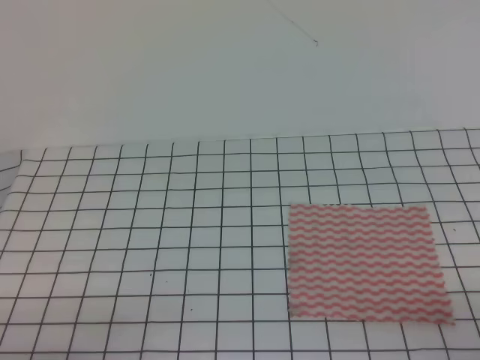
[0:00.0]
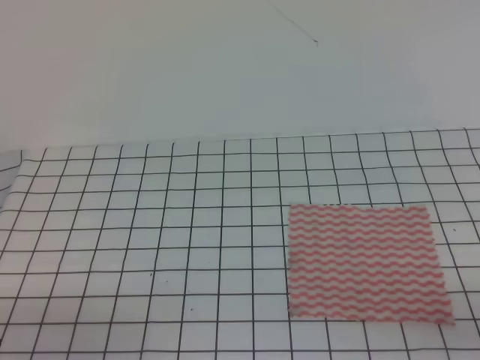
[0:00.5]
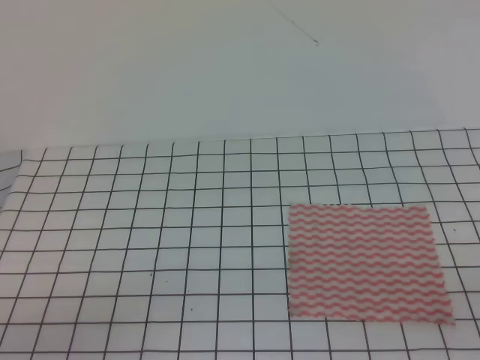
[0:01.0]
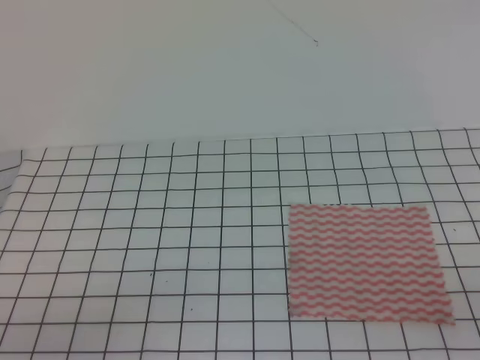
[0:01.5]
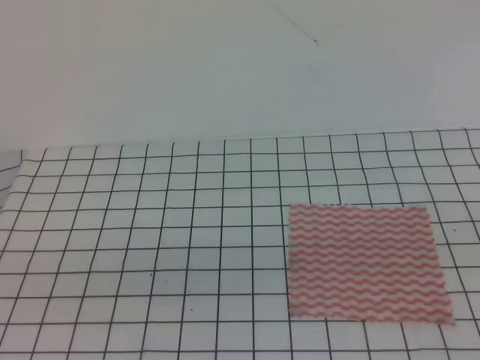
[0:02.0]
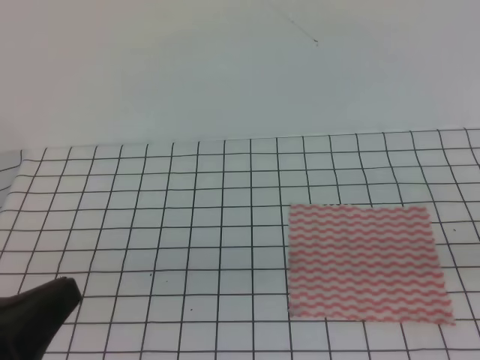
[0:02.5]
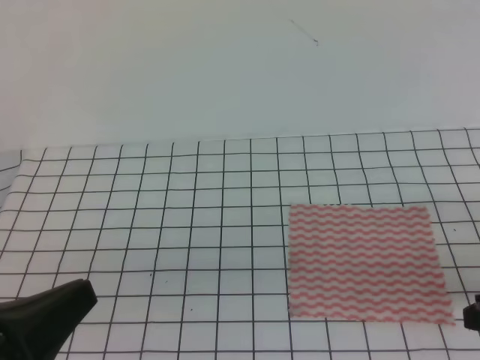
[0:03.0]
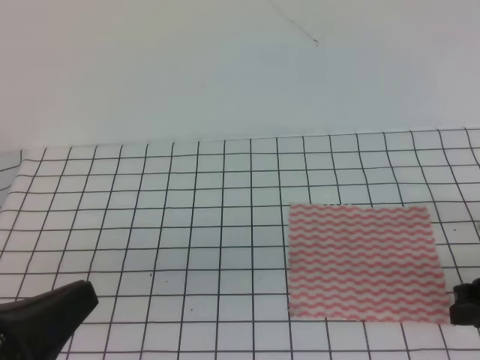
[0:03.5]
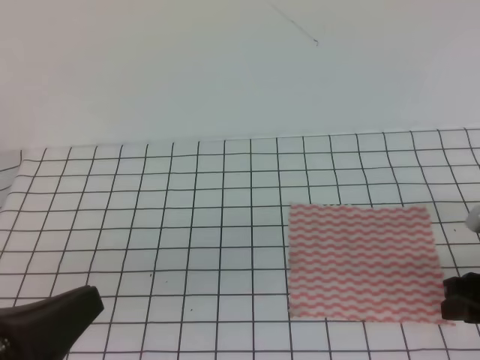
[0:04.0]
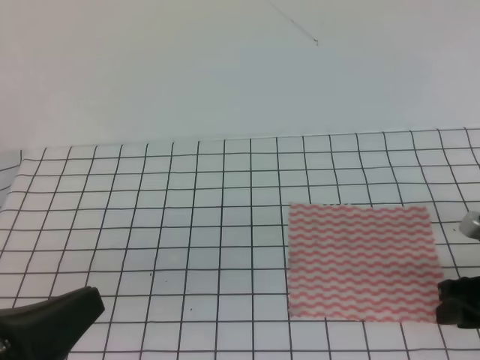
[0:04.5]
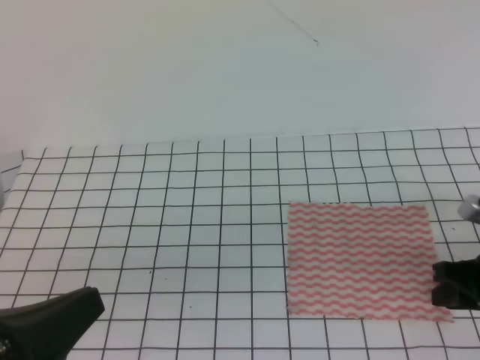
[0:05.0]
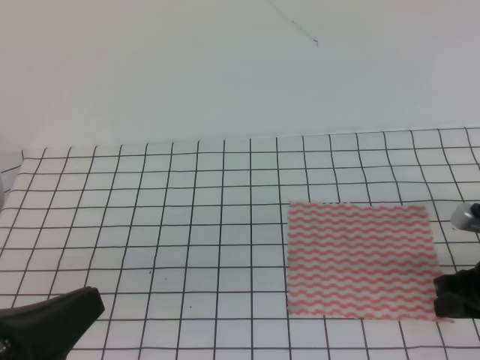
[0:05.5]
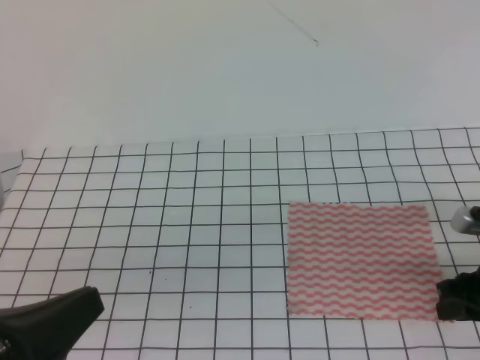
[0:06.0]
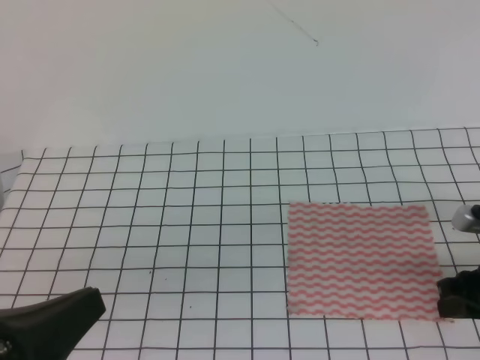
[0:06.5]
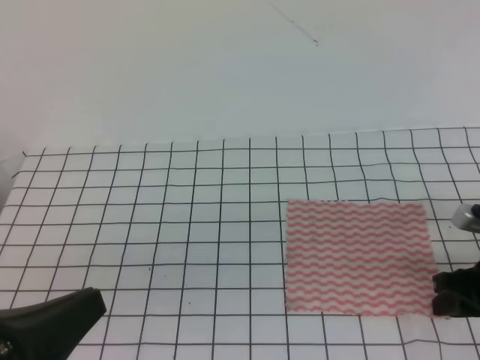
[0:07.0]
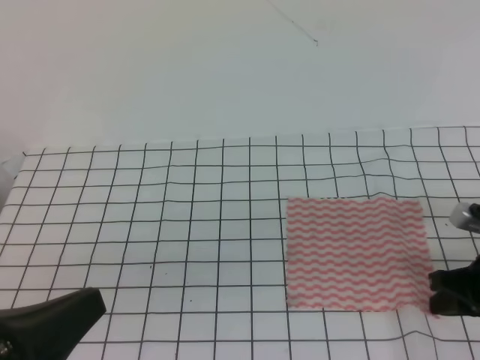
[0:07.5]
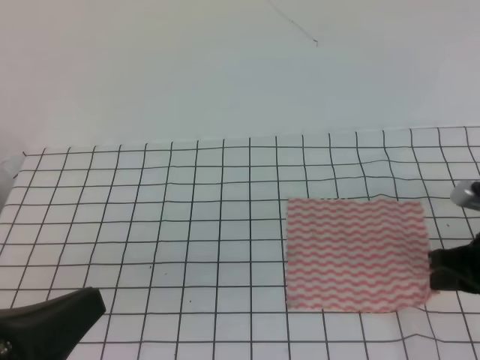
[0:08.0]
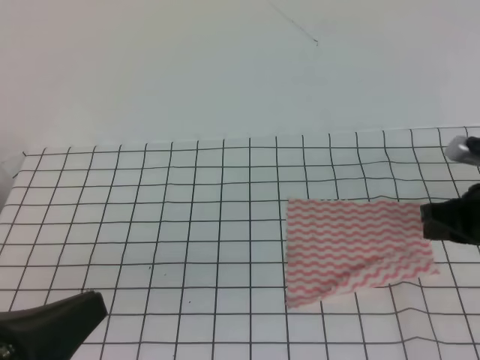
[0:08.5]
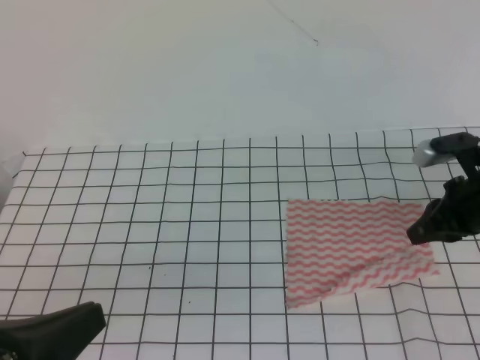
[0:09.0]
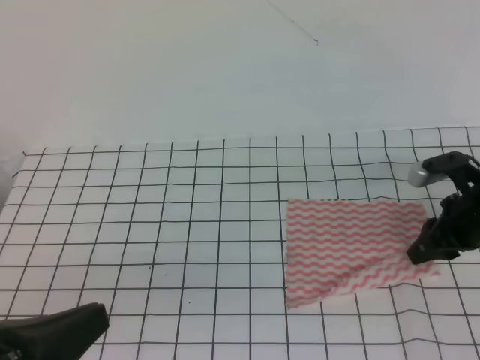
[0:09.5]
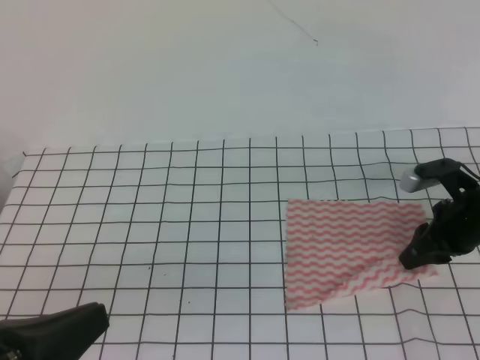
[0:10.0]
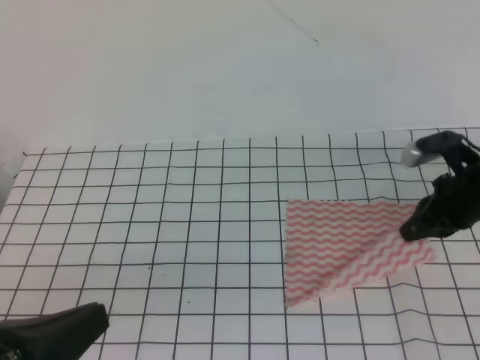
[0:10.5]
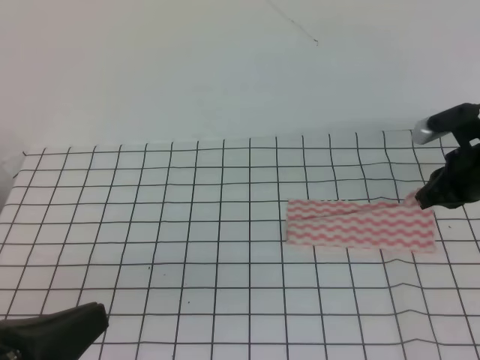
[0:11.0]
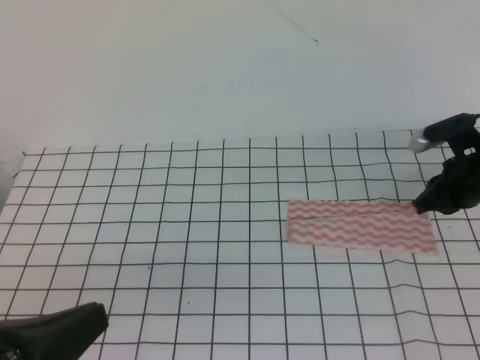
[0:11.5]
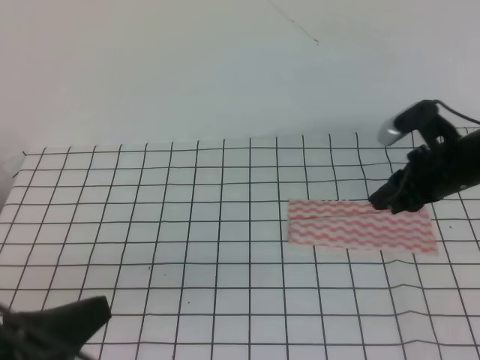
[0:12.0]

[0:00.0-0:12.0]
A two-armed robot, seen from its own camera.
0:02.0 to 0:04.0: The left gripper shifts by approximately 5 cm; the right gripper goes roughly 25 cm forward and downward, and opens.
0:04.0 to 0:06.0: The grippers move only a little.
0:06.0 to 0:08.0: The right gripper closes its fingers.
0:08.0 to 0:10.0: The right gripper travels forward by roughly 10 cm, and opens up.
0:10.0 to 0:12.0: The right gripper moves roughly 5 cm, and closes and opens again.

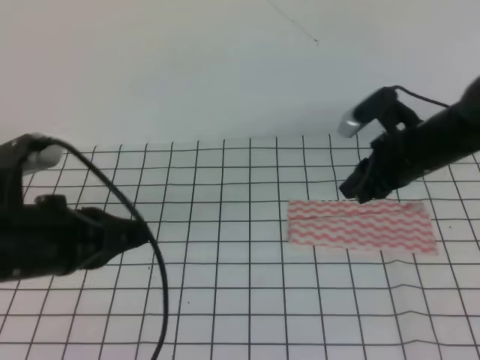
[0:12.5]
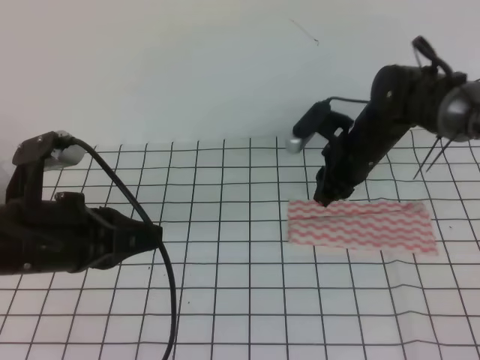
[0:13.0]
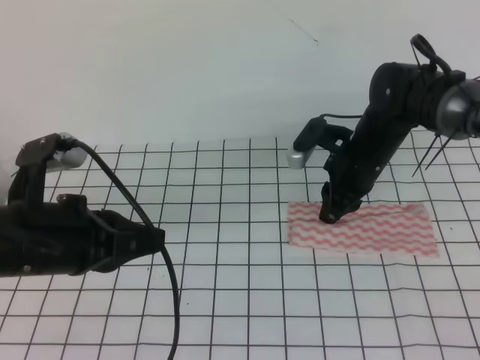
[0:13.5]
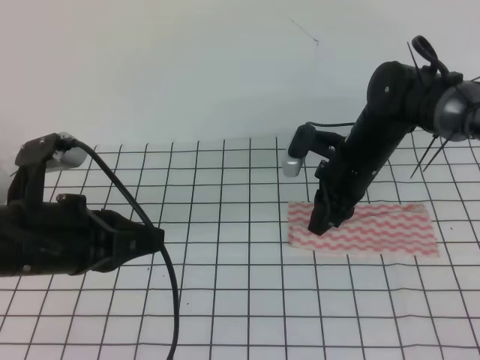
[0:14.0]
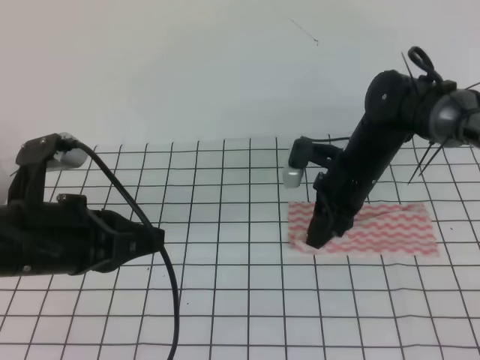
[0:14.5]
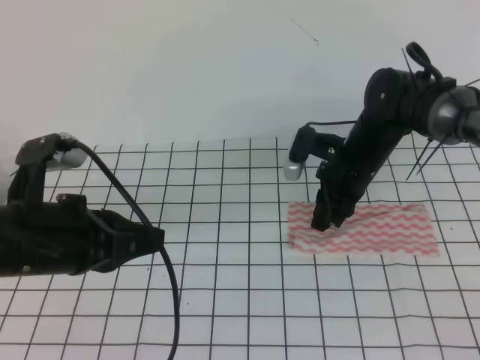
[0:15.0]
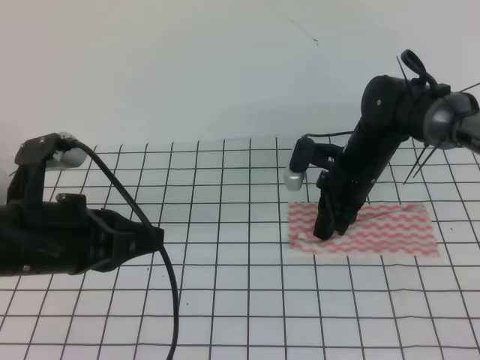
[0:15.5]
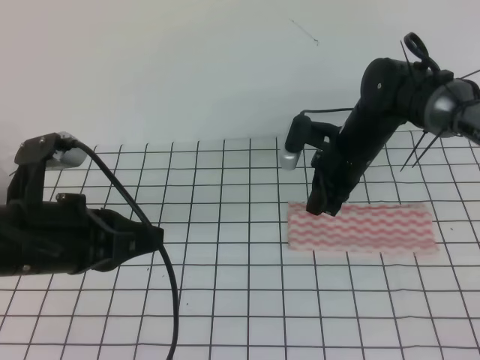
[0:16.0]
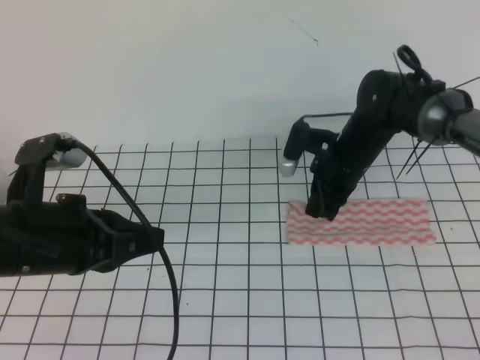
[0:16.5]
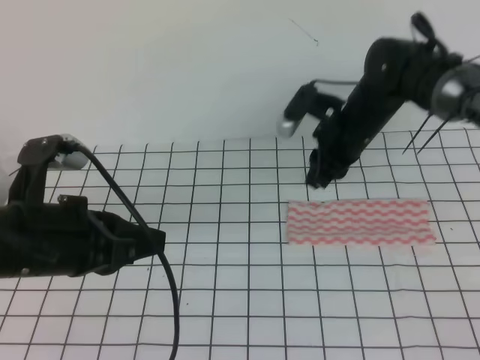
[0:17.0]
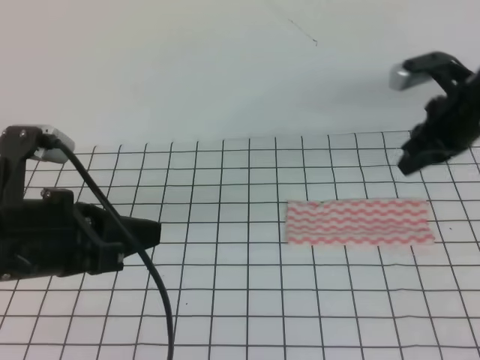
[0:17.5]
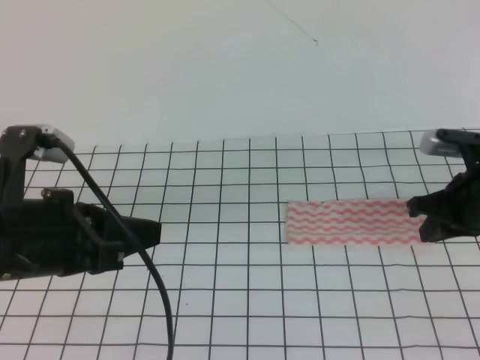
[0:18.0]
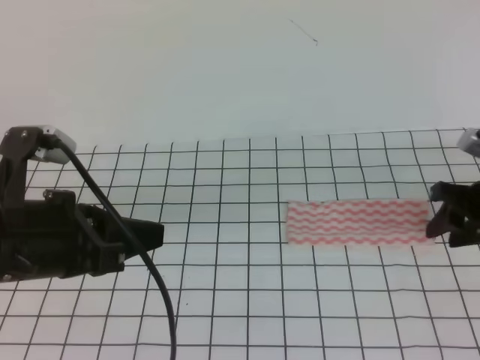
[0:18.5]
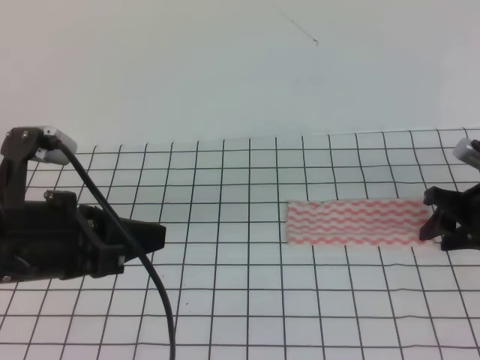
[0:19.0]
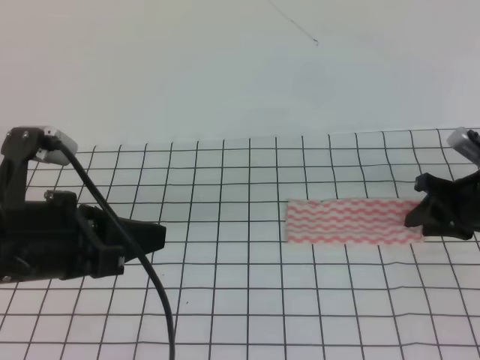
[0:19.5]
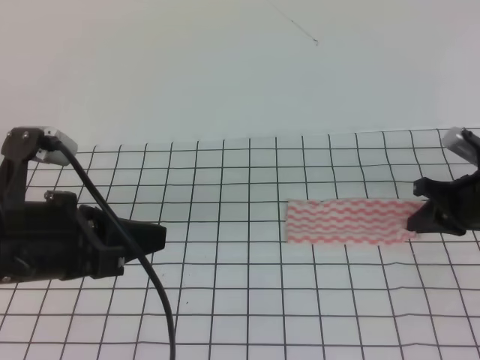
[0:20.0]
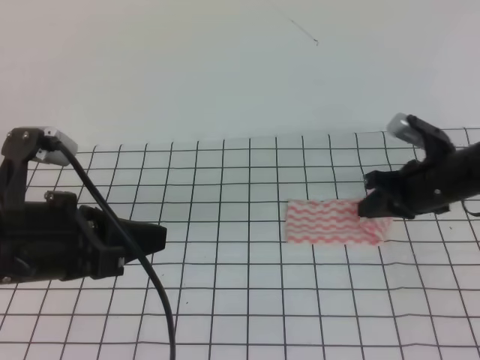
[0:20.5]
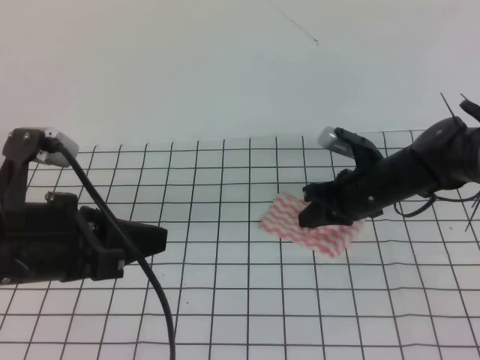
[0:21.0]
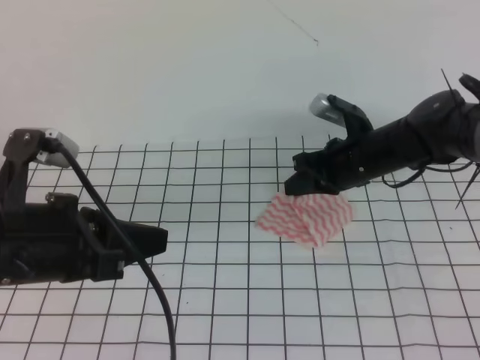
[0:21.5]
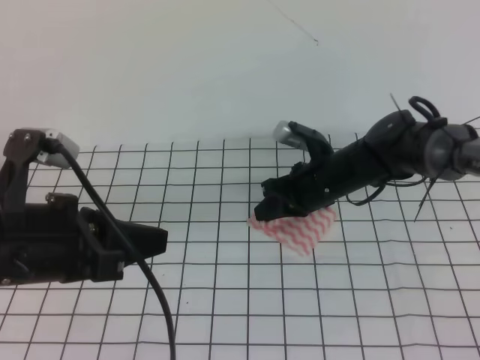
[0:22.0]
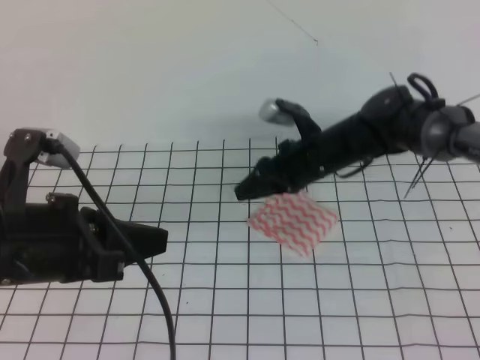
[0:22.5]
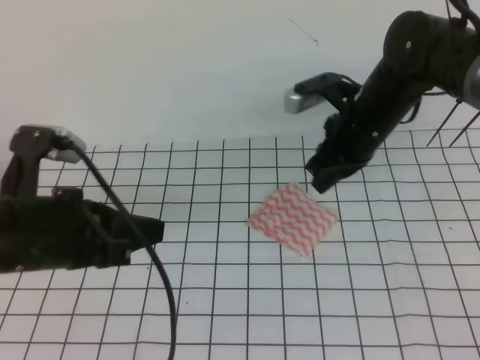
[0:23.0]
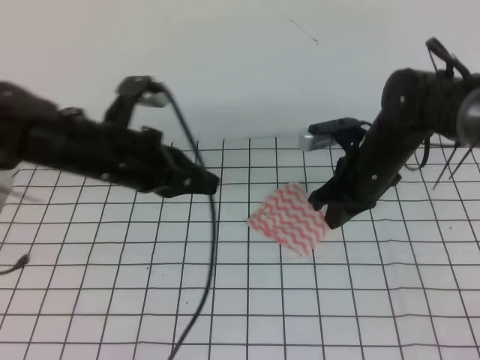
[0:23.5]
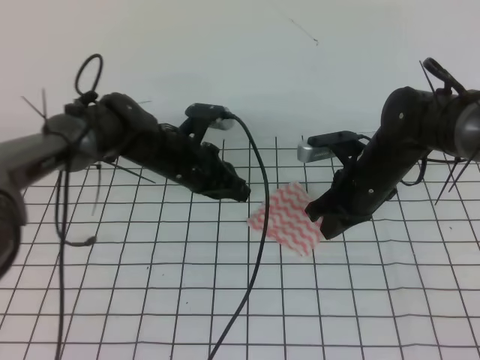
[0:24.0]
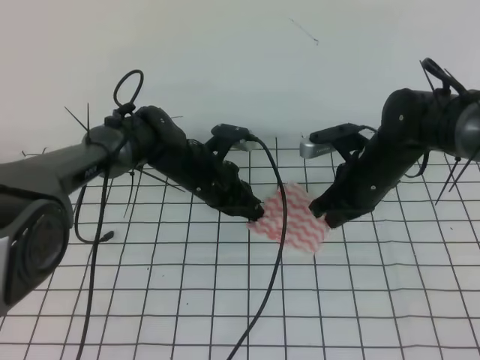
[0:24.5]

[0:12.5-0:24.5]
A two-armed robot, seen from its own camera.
0:12.5 to 0:14.5: The right gripper is displaced to the left by approximately 5 cm.
0:14.5 to 0:16.5: The right gripper closes up.
0:16.5 to 0:18.5: The right gripper shifts roughly 20 cm to the right and backward, and opens.
0:18.5 to 0:20.5: The right gripper heads to the left, covering about 5 cm, and closes up.
0:20.5 to 0:22.5: The right gripper travels to the left by approximately 15 cm, and opens.
0:22.5 to 0:24.5: The right gripper travels to the right by approximately 5 cm, and closes; the left gripper travels forward, downward and to the right by about 30 cm.

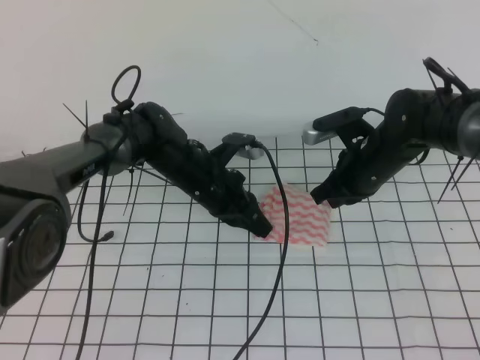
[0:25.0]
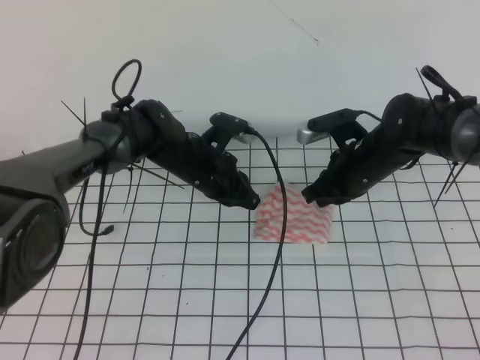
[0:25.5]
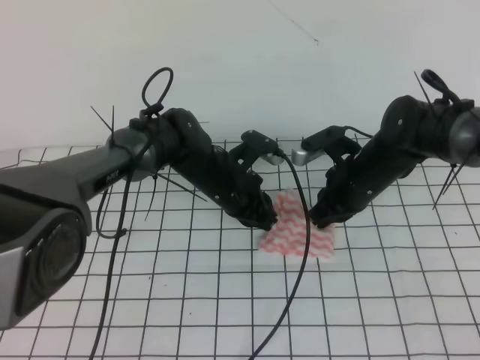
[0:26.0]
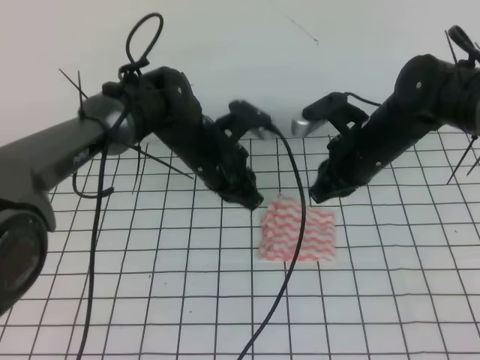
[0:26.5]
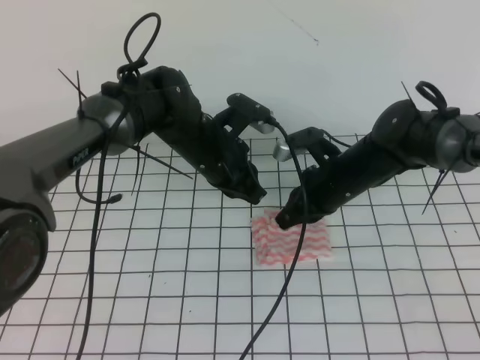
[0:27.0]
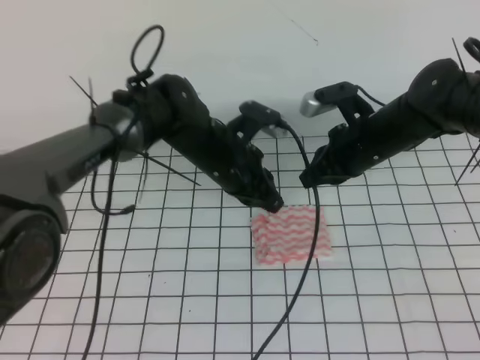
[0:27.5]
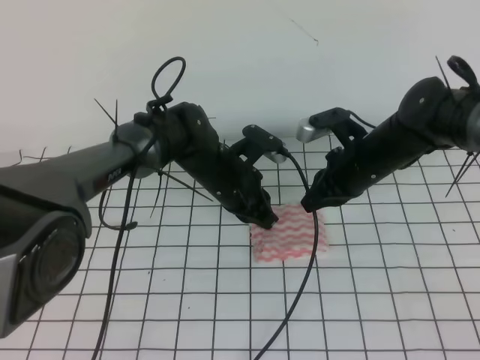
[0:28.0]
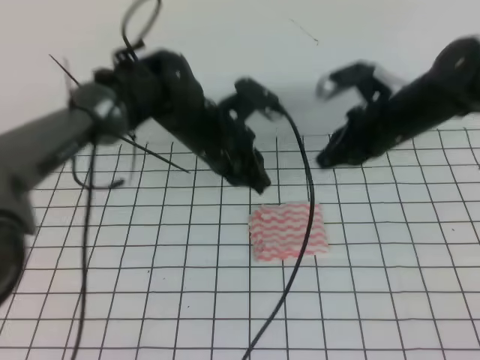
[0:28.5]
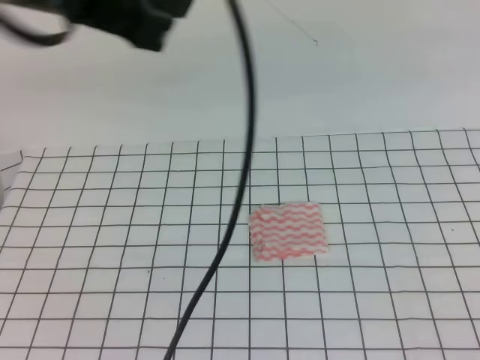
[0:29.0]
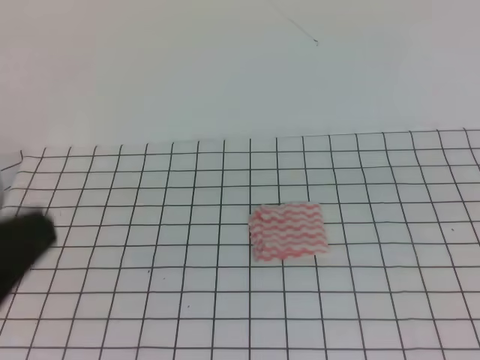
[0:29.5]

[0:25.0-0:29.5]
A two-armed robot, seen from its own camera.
0:25.0 to 0:27.0: The left gripper shifts some 5 cm upward.
0:27.0 to 0:29.5: The right gripper heads backward, upward and to the right, covering approximately 40 cm. Meanwhile the left gripper moves backward, upward and to the left, about 40 cm.
